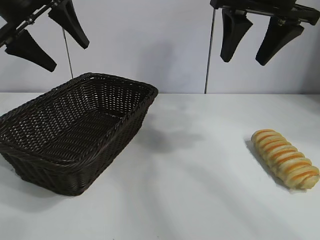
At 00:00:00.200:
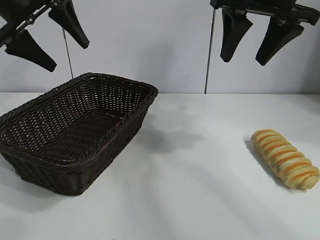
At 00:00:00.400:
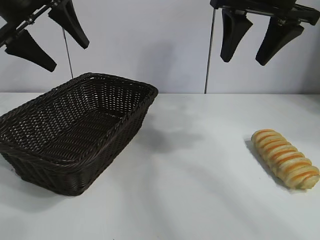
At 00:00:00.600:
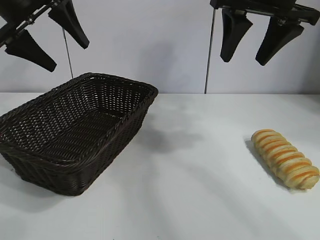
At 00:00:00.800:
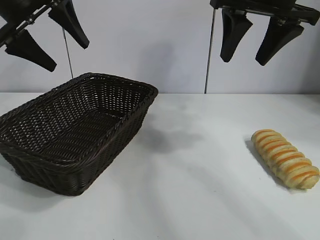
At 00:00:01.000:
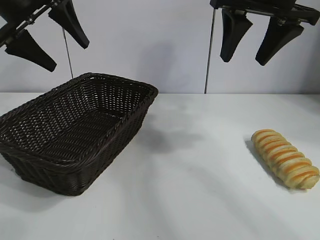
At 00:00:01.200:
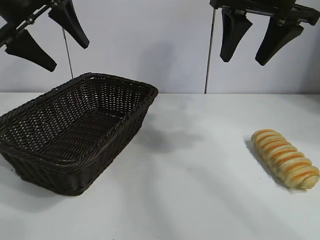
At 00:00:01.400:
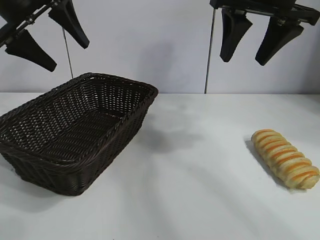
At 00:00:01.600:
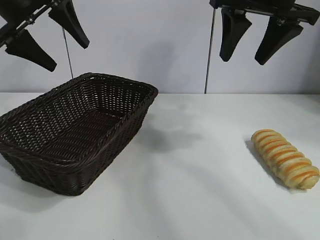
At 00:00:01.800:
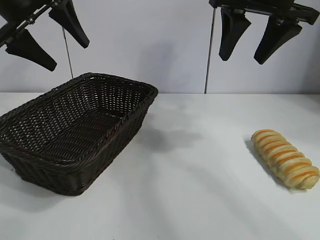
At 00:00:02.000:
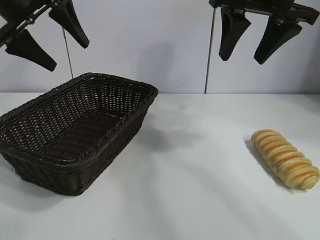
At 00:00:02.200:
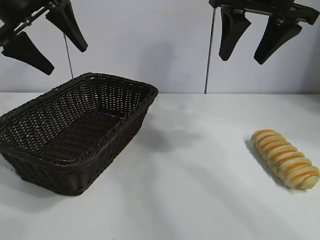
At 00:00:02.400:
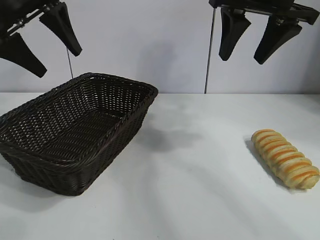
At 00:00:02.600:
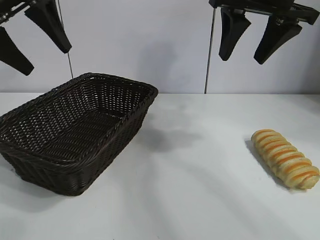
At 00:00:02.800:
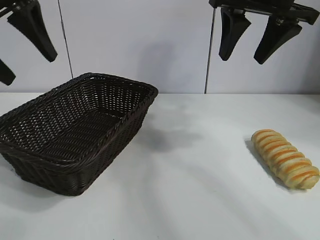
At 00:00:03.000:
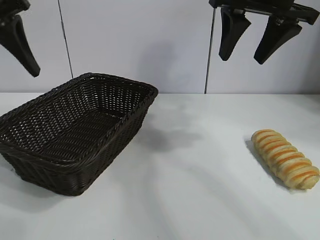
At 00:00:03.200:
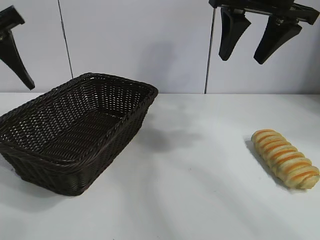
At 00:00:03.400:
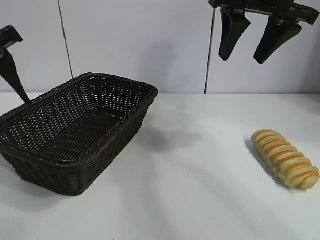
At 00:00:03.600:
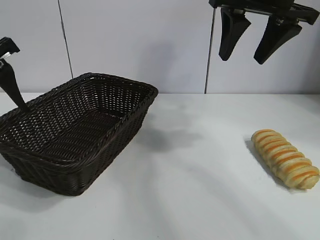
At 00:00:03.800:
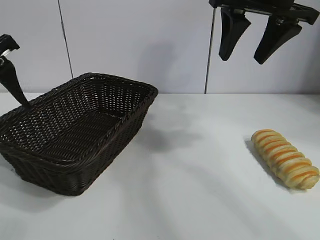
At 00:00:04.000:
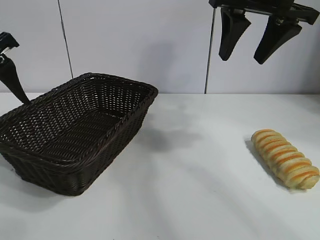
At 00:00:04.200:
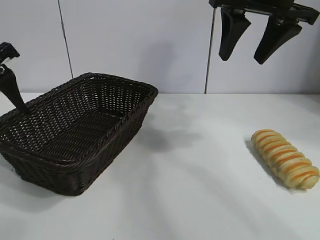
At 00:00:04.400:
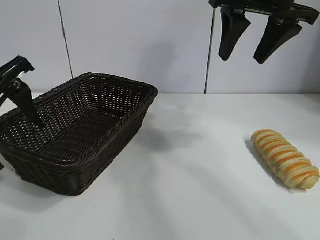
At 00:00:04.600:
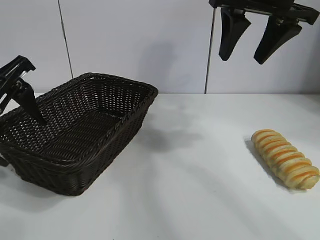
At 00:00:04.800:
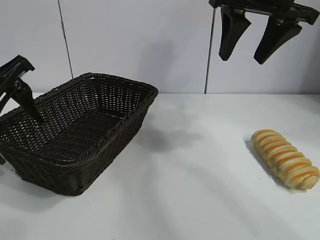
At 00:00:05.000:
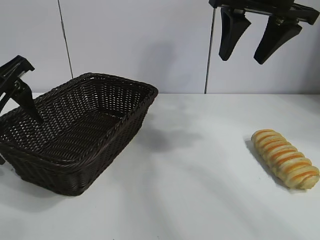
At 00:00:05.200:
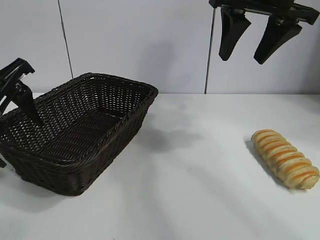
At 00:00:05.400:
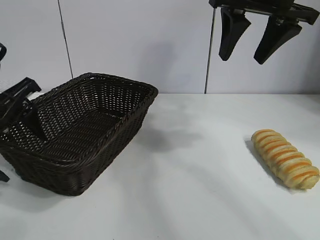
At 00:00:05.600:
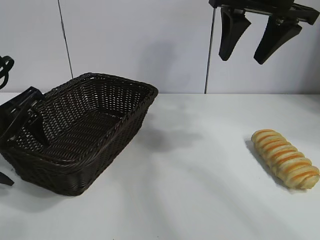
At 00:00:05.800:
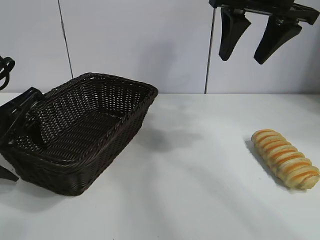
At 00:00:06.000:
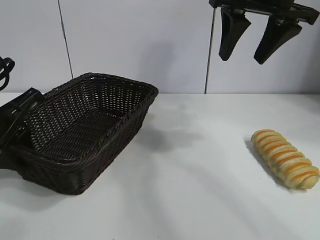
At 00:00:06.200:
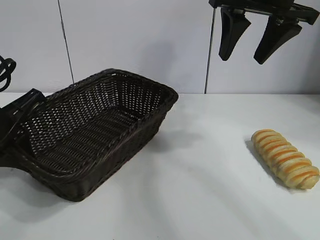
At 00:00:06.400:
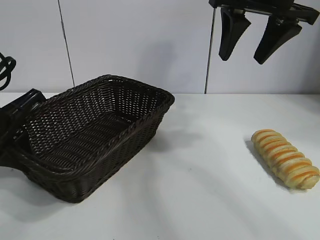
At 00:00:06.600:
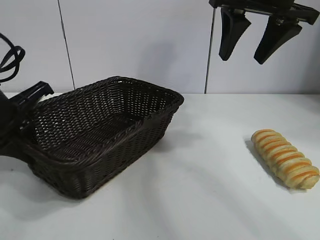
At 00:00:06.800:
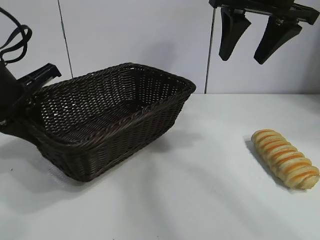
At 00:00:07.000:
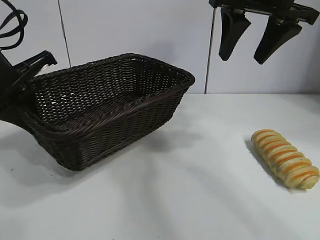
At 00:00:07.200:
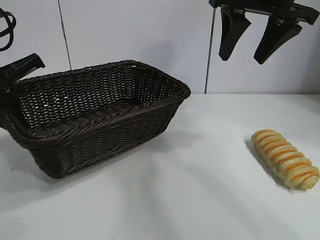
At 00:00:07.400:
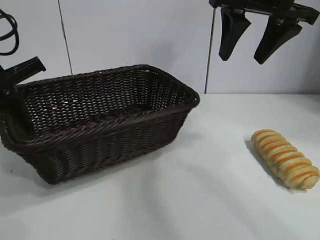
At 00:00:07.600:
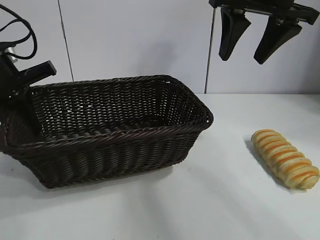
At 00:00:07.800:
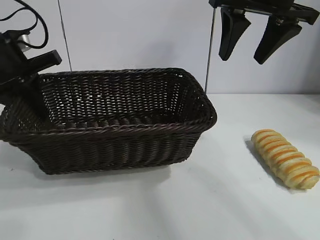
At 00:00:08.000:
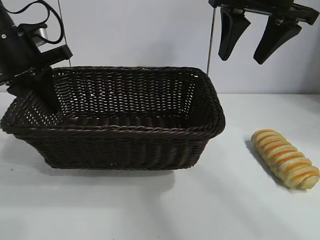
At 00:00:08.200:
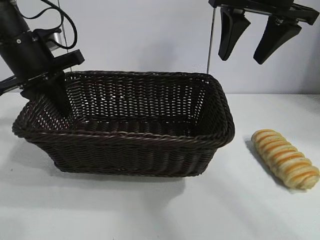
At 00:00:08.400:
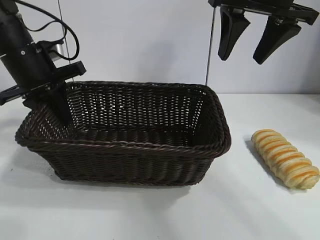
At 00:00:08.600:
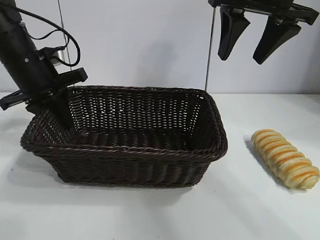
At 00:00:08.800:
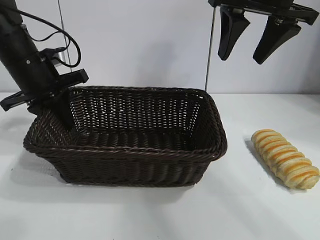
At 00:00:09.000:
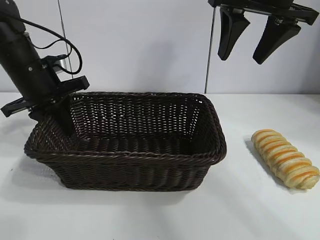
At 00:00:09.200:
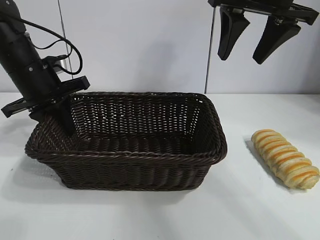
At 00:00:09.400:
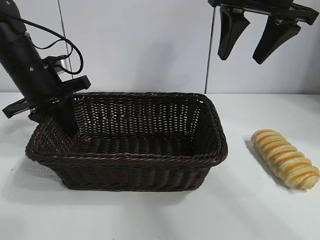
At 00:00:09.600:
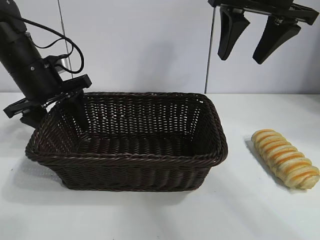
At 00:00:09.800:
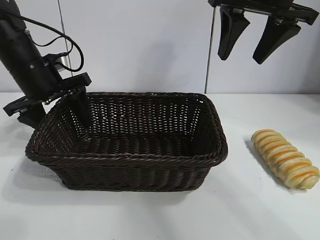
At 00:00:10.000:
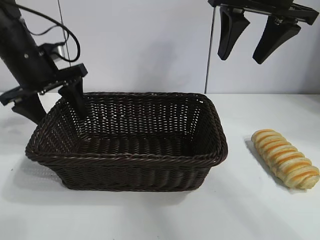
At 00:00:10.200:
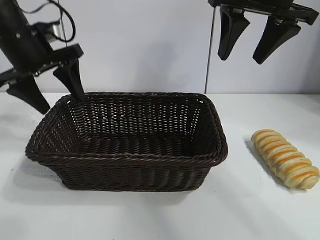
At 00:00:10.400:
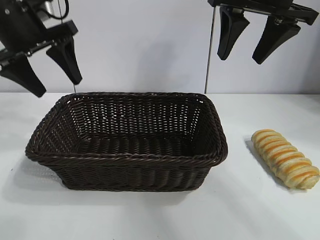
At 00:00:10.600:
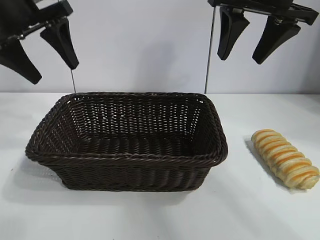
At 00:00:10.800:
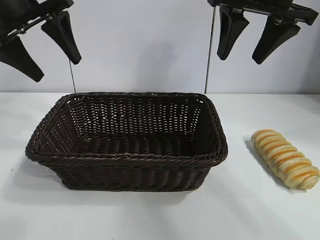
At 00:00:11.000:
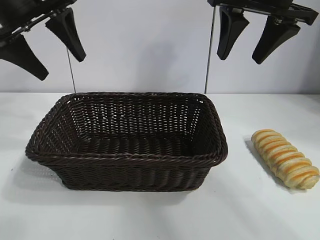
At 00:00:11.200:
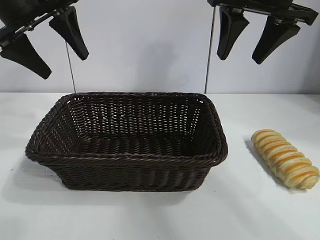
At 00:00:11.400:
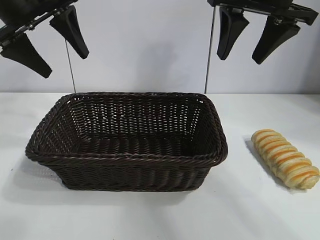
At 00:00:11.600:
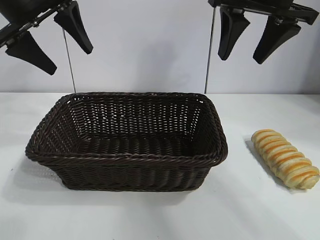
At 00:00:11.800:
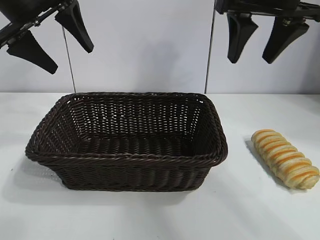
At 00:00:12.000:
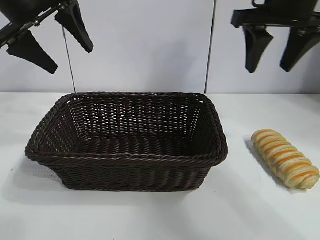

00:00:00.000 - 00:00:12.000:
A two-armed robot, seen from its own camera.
Task of the whole recording: pick up the long bread and put it into the basket.
Step, 00:00:02.200 - 00:00:06.200: Grasp the basket with the left gripper.
Step, 00:00:06.400 - 00:00:09.800: Place the basket in the center of the table with the left gripper.

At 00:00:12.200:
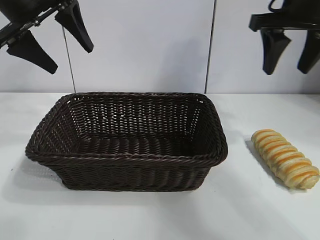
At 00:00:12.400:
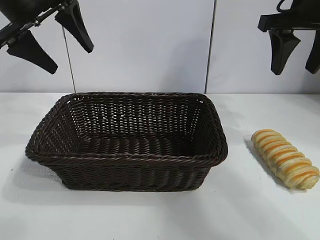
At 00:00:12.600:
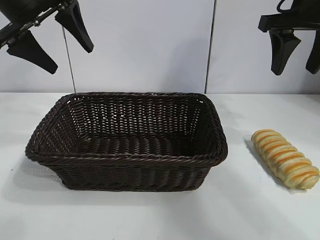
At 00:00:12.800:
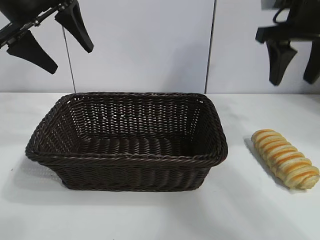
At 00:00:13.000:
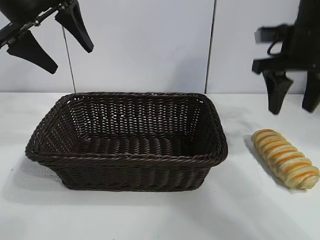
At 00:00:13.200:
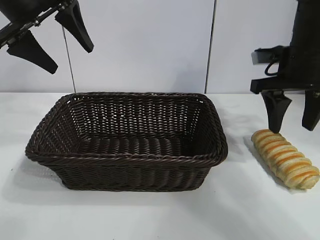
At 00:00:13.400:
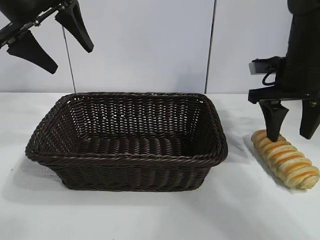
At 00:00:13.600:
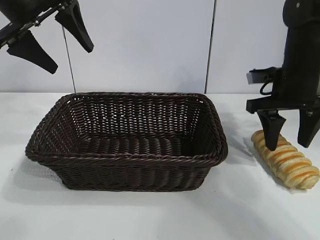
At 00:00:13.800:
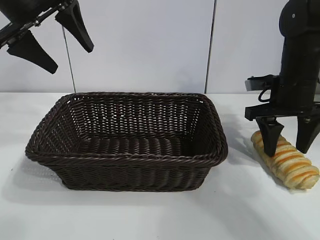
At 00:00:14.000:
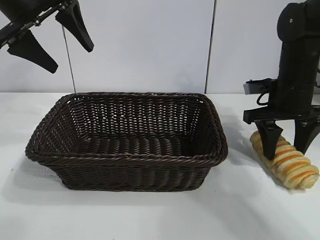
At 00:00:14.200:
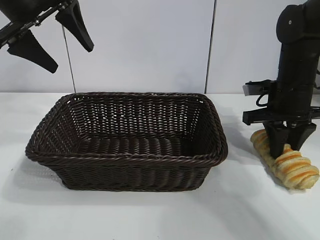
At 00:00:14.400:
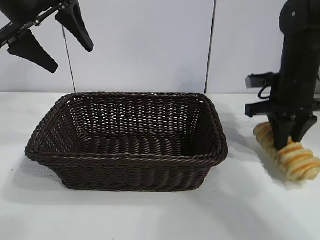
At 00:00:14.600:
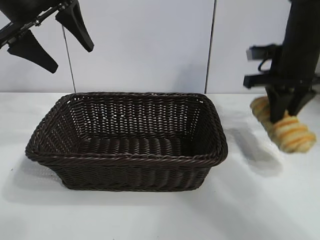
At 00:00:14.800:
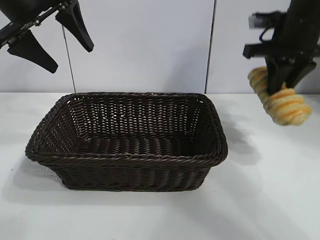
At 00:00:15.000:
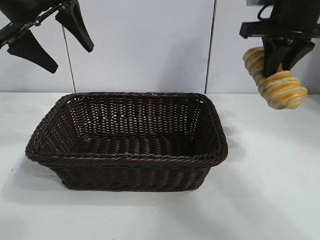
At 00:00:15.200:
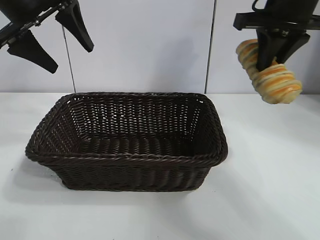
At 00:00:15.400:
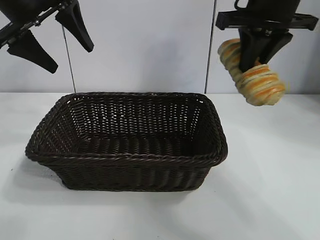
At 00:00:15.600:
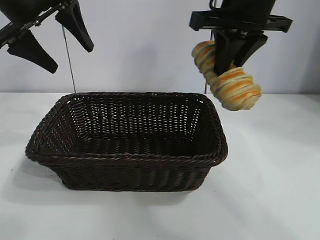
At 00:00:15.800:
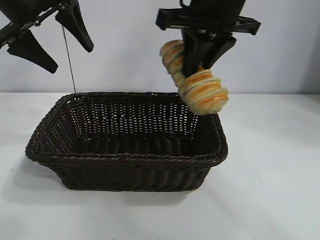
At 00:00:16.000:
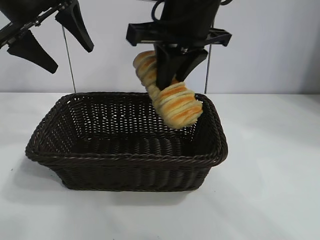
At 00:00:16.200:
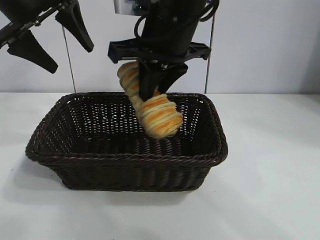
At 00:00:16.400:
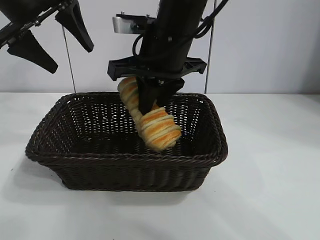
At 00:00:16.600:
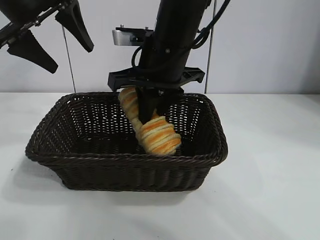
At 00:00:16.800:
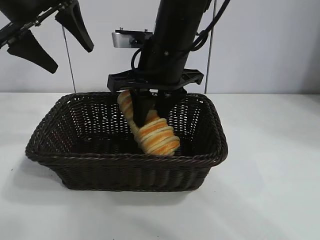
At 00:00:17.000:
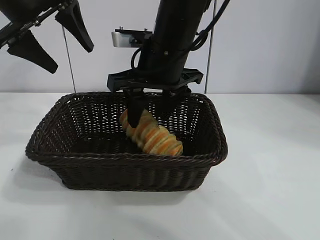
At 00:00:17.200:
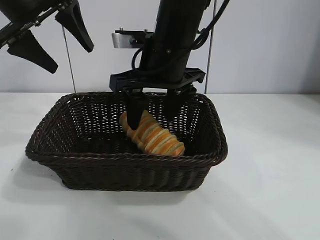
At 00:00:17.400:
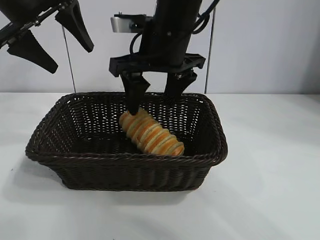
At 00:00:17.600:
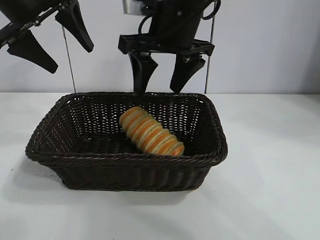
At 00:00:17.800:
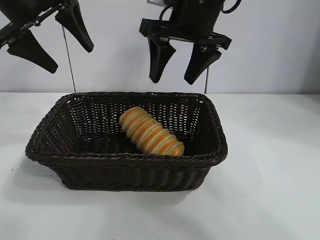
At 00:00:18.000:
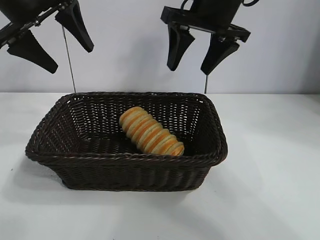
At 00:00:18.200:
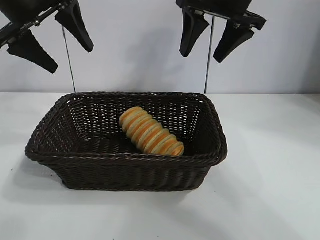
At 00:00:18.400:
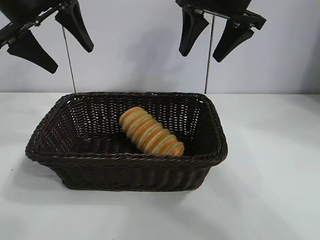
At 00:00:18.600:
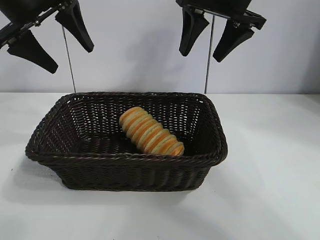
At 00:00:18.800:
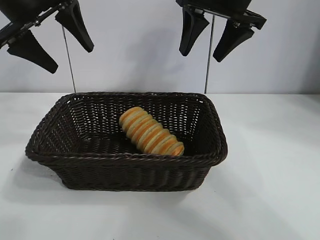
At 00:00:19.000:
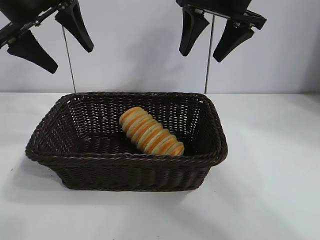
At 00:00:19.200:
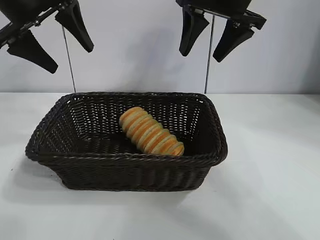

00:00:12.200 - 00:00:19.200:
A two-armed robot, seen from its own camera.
Task of the whole recording: pick up the long bread and put it into the basket.
Step, 00:00:12.200 - 00:00:14.200: Grasp the long bread with right gripper.
Step, 00:00:14.400 - 00:00:17.200: Place the long bread in the basket with right gripper.
